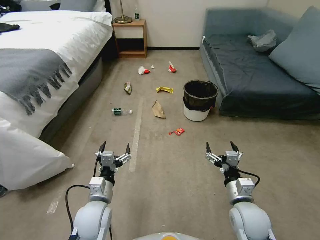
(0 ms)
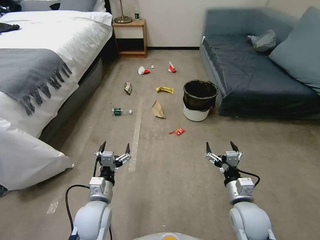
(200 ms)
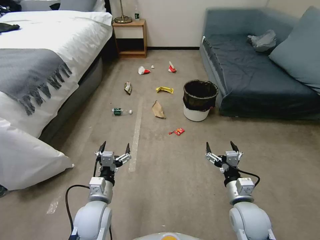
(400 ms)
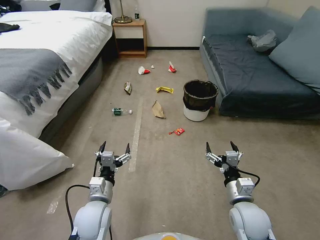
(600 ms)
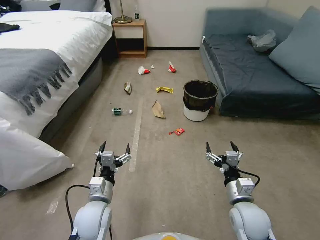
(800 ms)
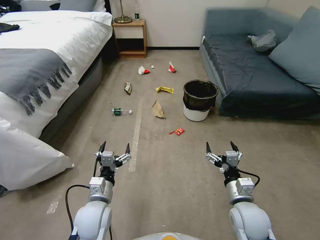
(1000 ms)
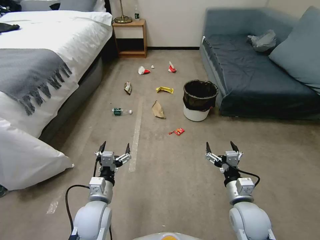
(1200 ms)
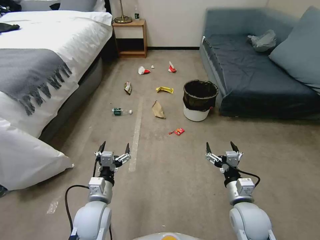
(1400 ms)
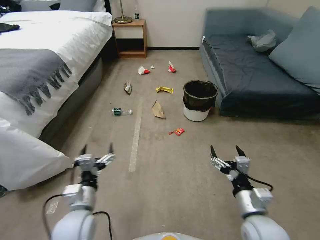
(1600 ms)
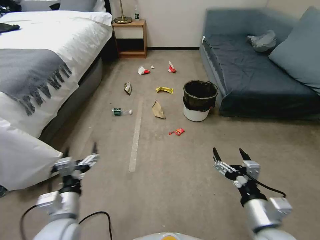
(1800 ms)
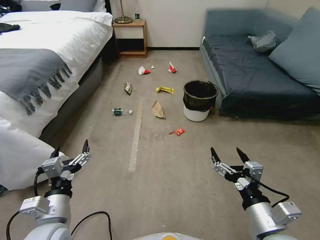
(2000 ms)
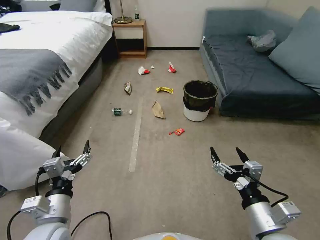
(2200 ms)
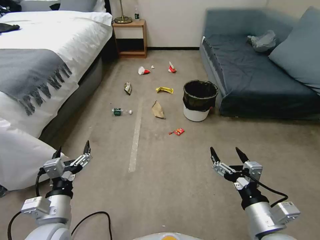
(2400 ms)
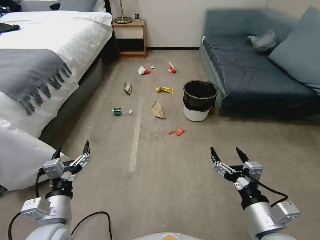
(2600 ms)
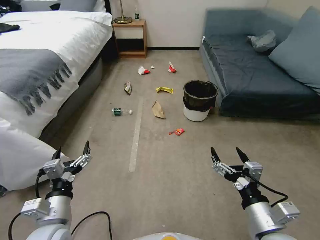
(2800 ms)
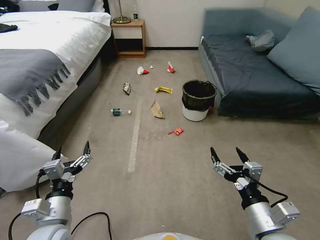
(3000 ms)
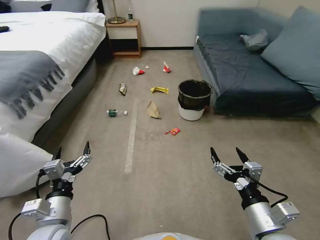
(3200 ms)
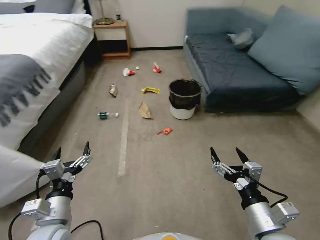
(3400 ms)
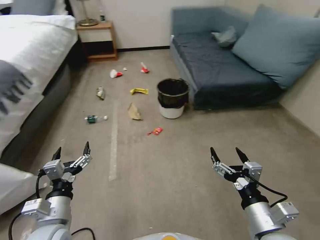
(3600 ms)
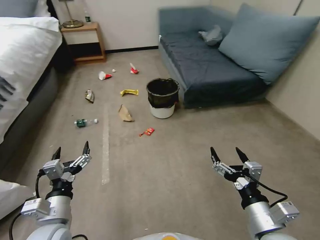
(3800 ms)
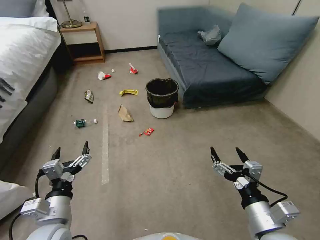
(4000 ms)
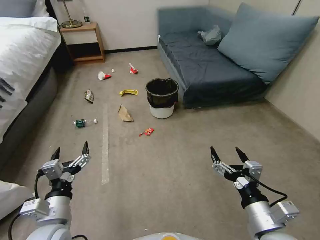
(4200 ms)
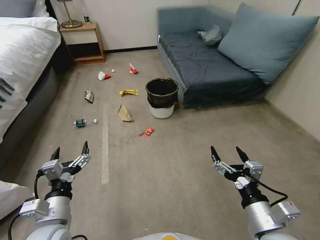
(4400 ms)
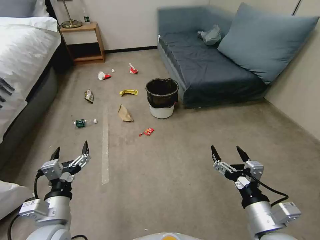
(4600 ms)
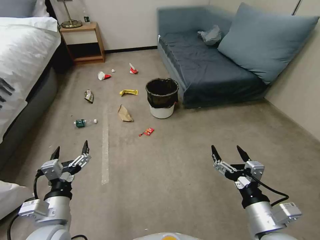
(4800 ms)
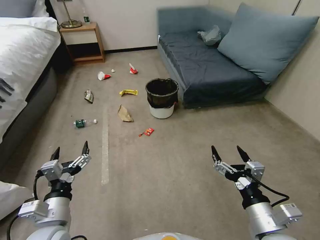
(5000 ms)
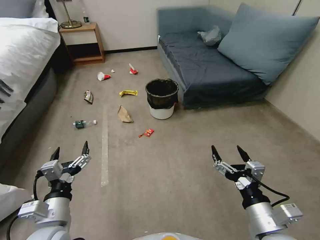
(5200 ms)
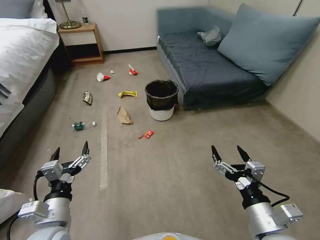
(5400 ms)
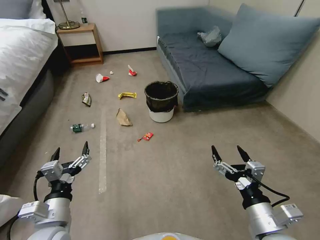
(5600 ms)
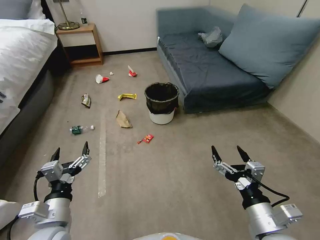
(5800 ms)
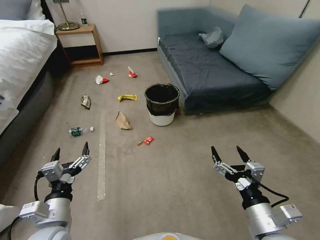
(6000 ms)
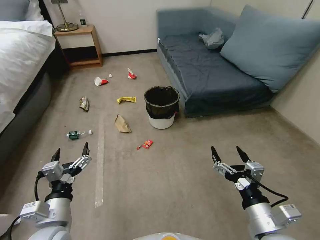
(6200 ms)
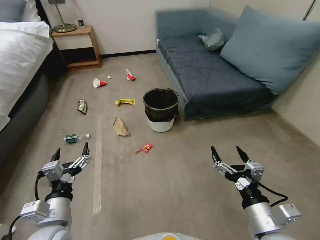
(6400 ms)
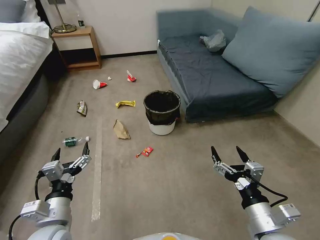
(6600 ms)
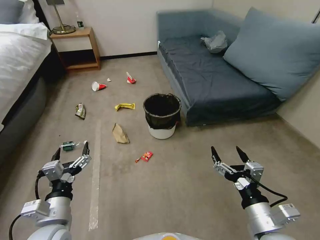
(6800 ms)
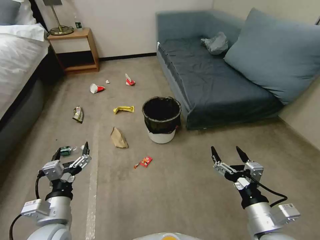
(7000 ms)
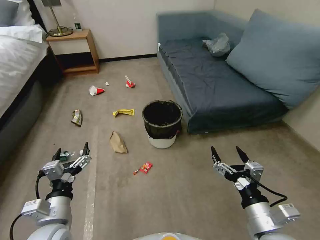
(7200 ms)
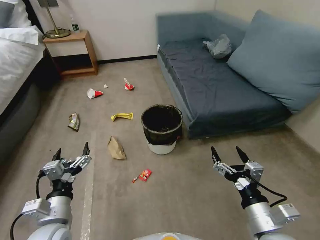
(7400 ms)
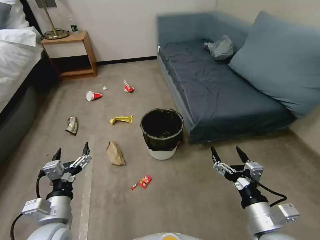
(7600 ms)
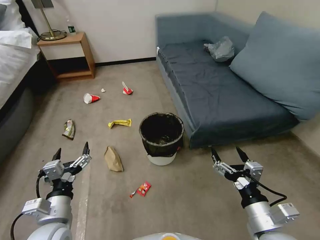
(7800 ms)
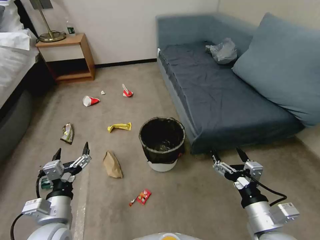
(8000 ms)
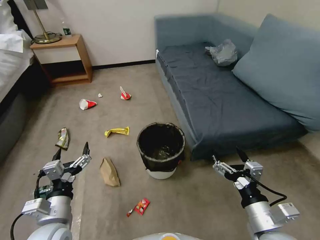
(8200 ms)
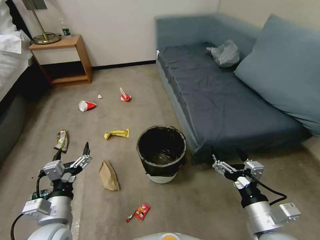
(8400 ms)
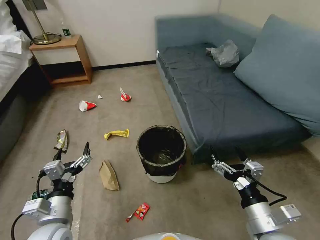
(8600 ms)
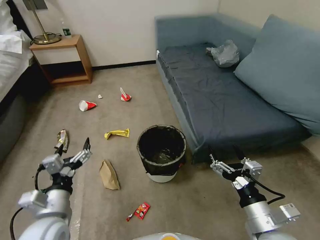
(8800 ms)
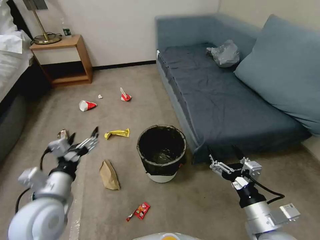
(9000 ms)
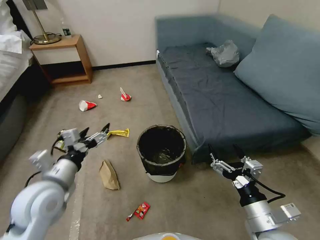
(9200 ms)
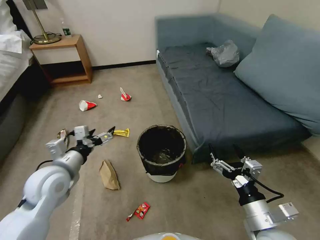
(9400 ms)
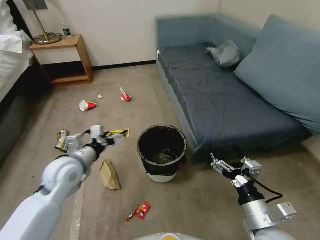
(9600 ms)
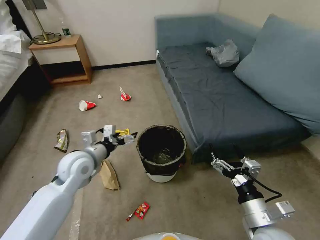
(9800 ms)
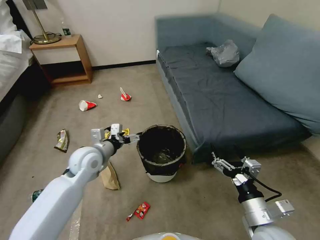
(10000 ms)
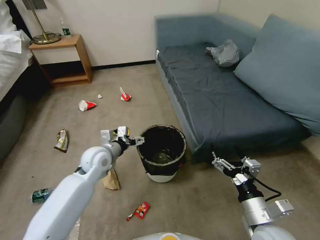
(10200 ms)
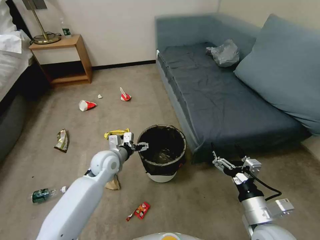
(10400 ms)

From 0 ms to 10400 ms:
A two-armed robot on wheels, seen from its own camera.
Task of the whole recording: Pick up the trash can from the floor.
From 1400 ms to 3000 ms: The right gripper travels backward and upward by roughly 10 cm. The left gripper is displaced to the left, backward and upward by about 10 cm.
From 4400 ms to 6000 ms: Both grippers stay about where they are.
From 7400 ms to 9000 ms: The left gripper is displaced upward by about 5 cm.
From 9000 ms to 10400 ms: The left gripper goes some 20 cm forward, downward and to the right.

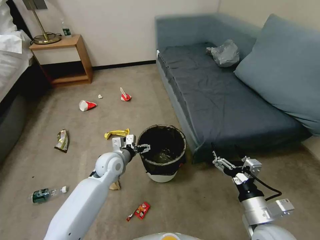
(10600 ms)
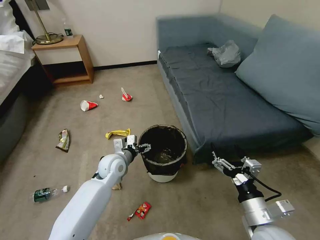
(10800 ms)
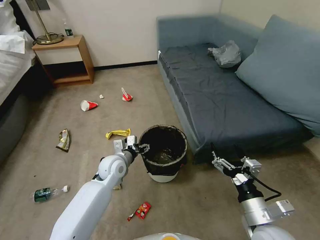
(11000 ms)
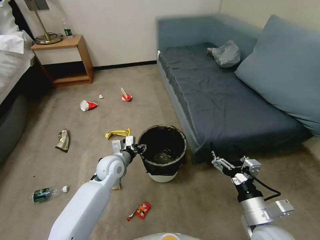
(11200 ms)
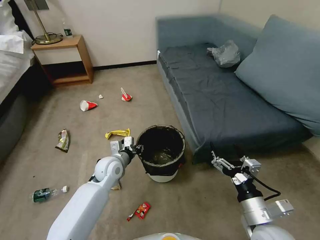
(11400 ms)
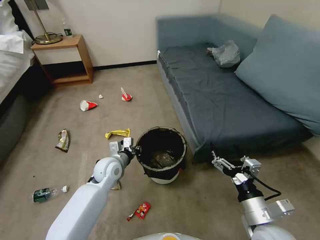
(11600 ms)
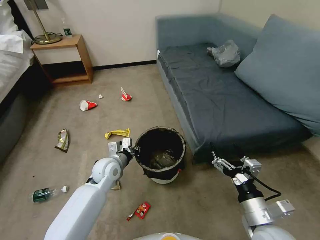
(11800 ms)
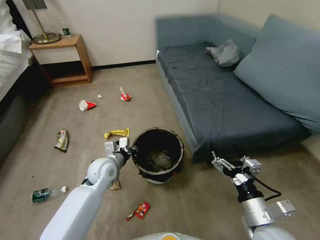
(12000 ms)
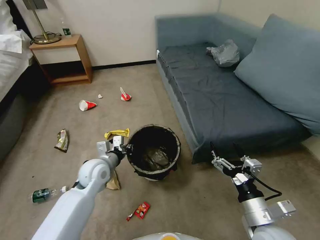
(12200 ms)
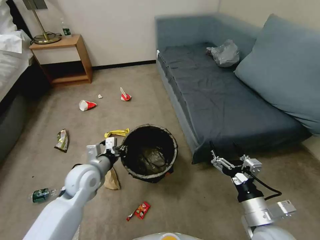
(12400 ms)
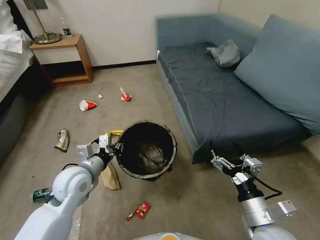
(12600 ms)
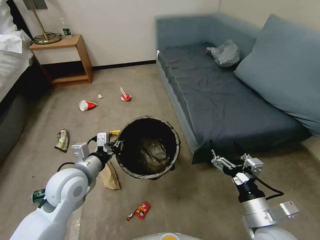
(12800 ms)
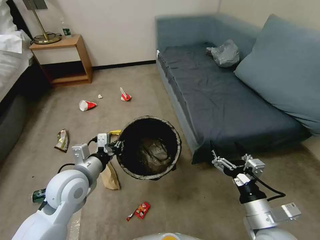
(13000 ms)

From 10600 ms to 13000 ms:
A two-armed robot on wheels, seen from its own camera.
Task of the whole recording: Pick up the trash can from the floor.
From 10600 ms to 11800 ms: The left gripper closes.
From 11800 ms to 13000 ms: The left gripper moves upward and backward, some 15 cm.

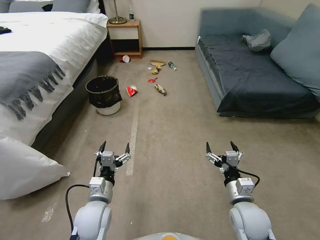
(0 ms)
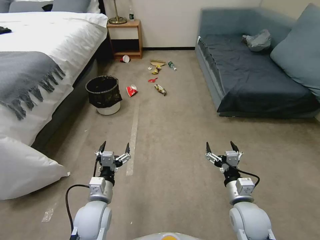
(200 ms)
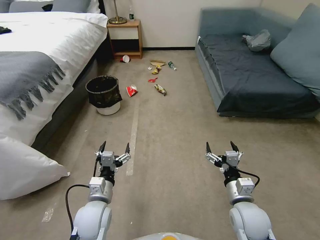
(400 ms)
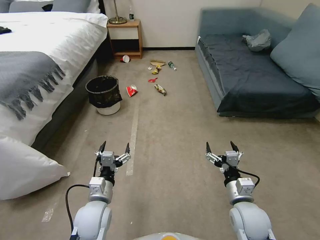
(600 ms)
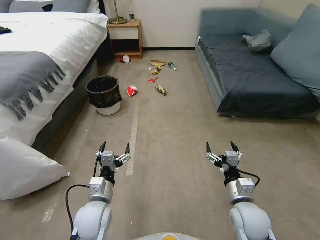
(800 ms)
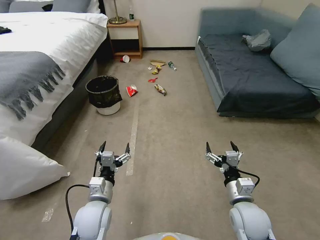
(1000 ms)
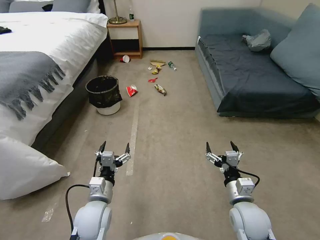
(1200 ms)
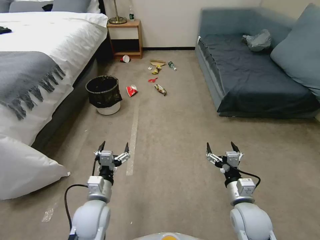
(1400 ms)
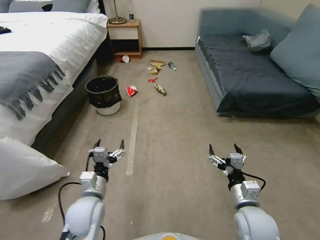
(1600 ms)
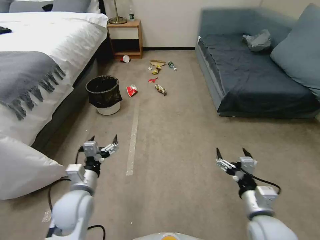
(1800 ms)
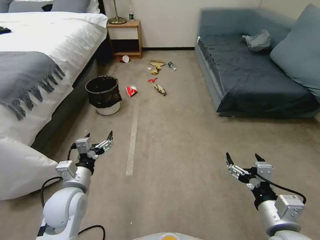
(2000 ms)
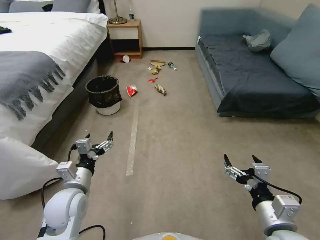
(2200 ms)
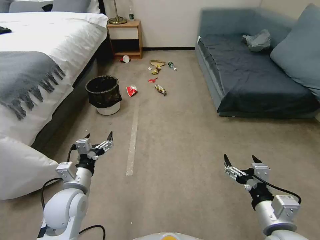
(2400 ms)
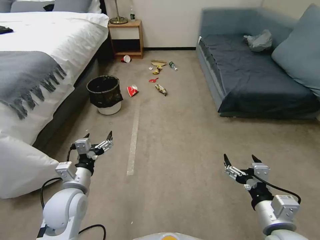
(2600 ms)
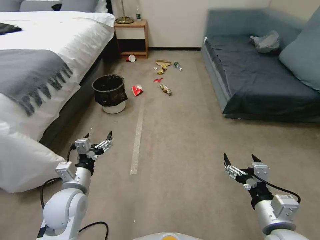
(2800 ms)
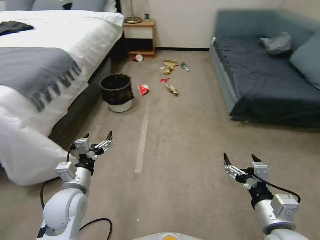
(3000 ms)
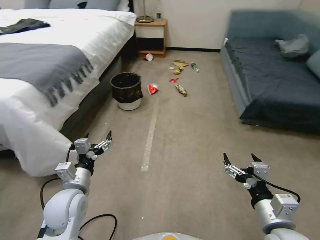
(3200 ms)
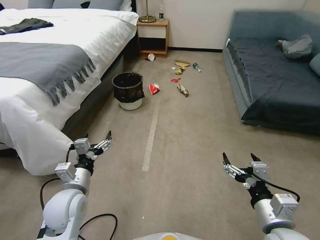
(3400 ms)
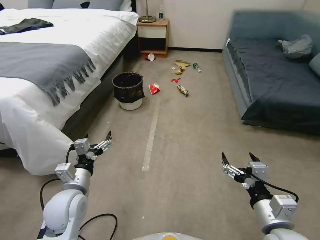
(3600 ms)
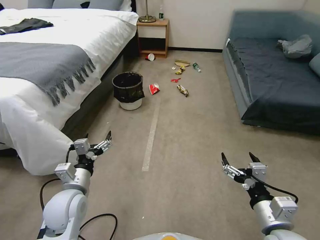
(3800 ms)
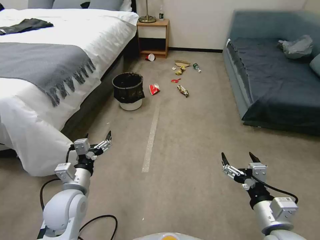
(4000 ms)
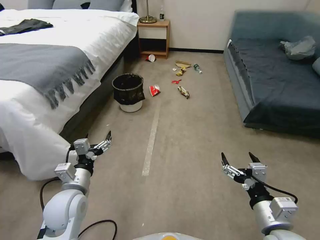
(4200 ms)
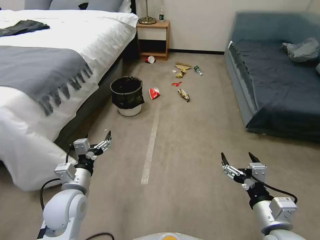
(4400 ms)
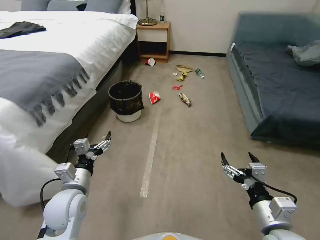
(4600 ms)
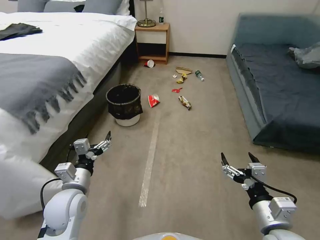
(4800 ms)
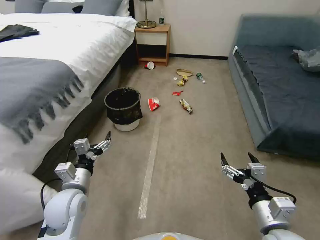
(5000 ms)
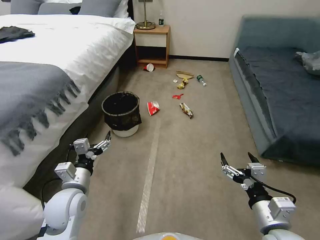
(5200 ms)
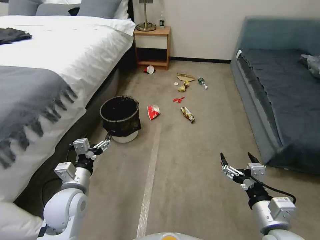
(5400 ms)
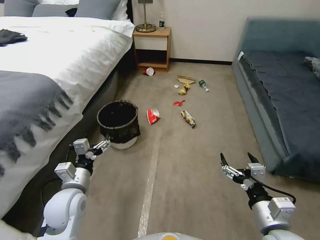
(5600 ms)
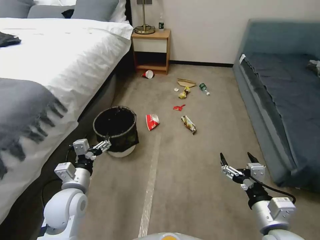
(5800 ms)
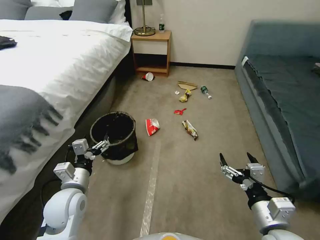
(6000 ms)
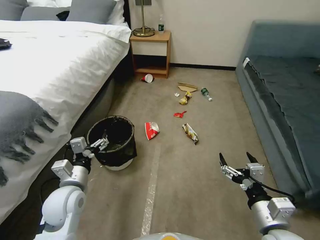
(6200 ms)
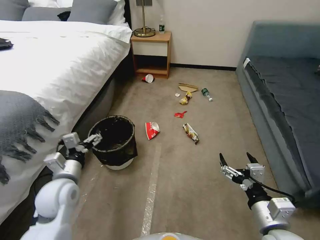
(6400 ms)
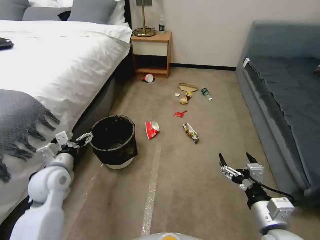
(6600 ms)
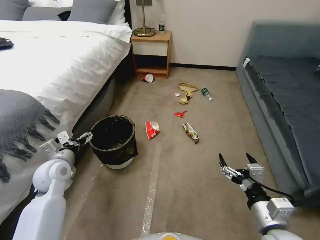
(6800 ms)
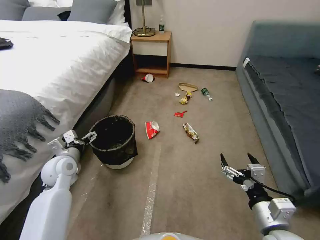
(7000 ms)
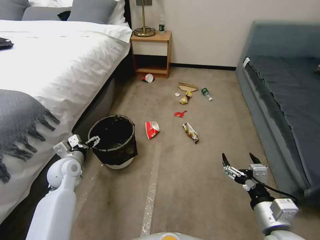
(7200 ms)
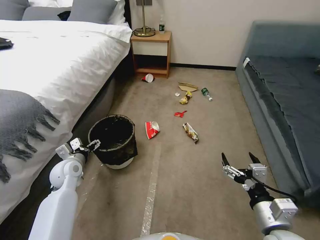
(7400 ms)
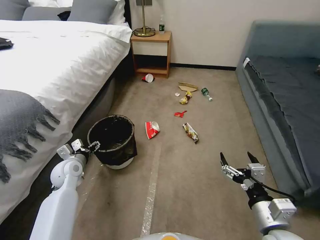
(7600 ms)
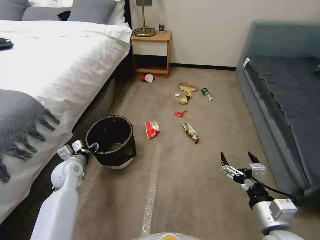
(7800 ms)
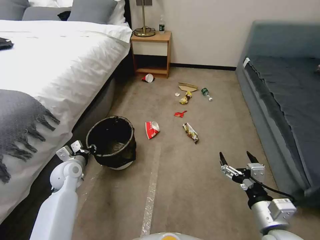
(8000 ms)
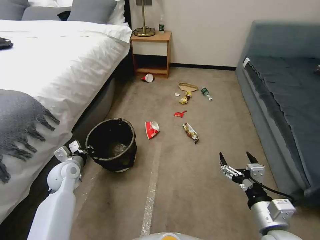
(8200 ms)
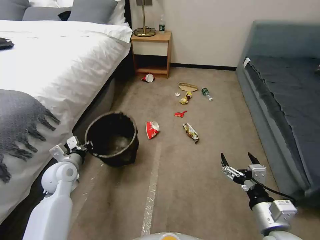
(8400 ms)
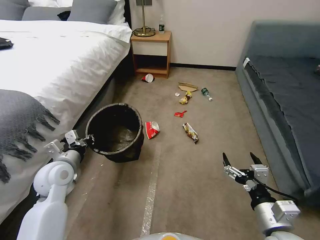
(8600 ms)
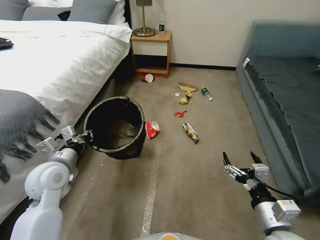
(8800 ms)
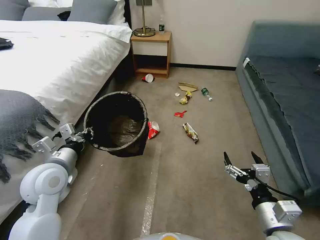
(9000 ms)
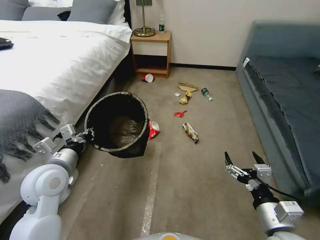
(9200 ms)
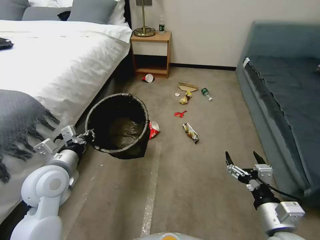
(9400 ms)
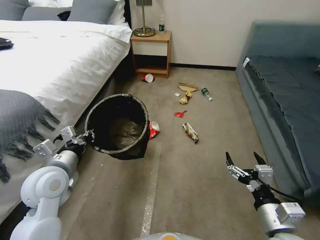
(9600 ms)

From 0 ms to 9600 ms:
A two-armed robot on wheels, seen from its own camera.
Task of the whole recording: Pick up the trash can from the floor.
From 1600 ms to 3200 ms: The left gripper changes place by approximately 5 cm. Meanwhile the right gripper shifts roughly 10 cm upward and backward.
From 6400 ms to 8000 ms: The left gripper shifts about 15 cm forward, downward and to the left, and closes.
From 8000 ms to 9600 ms: The left gripper heads upward and backward, covering roughly 15 cm.
